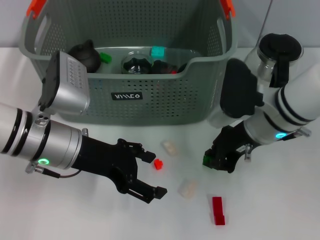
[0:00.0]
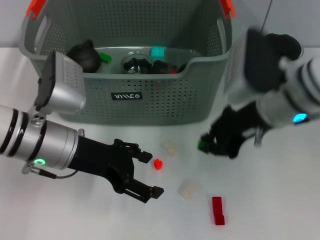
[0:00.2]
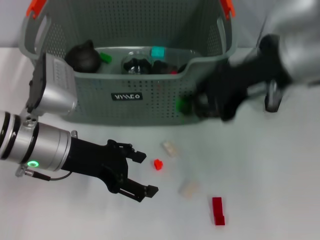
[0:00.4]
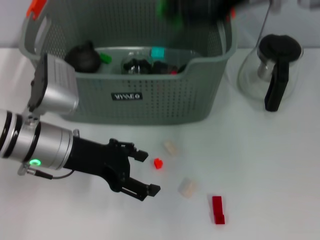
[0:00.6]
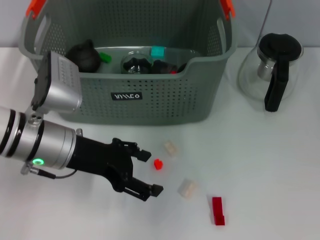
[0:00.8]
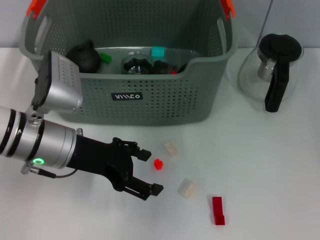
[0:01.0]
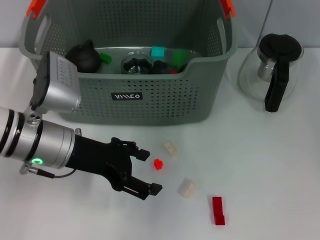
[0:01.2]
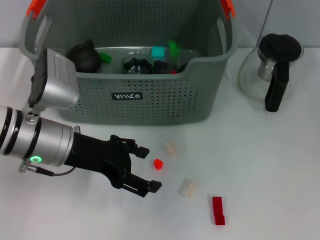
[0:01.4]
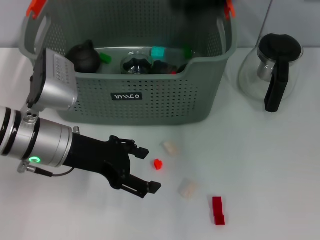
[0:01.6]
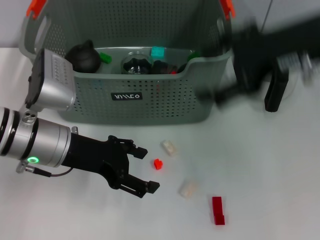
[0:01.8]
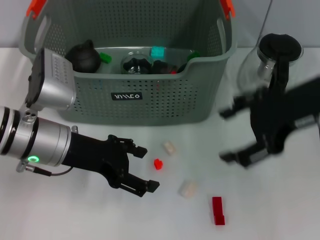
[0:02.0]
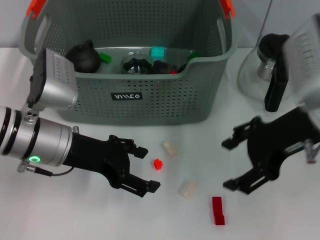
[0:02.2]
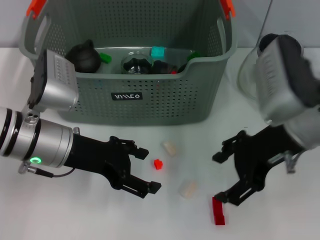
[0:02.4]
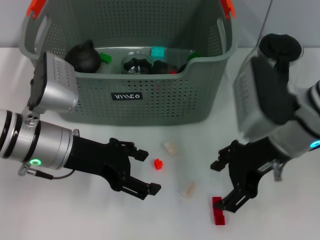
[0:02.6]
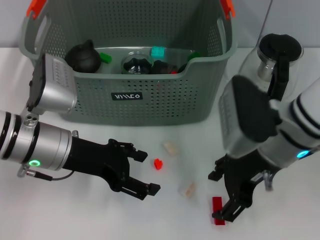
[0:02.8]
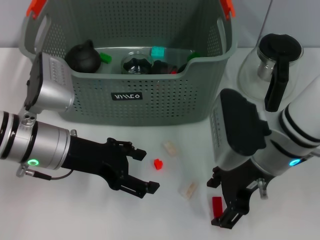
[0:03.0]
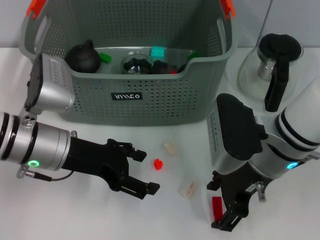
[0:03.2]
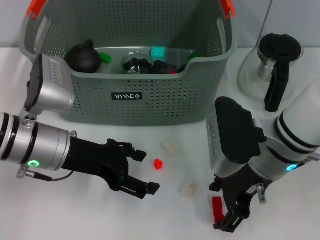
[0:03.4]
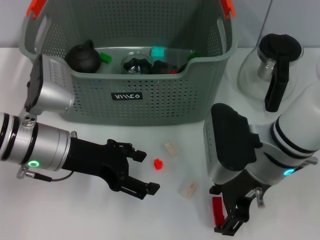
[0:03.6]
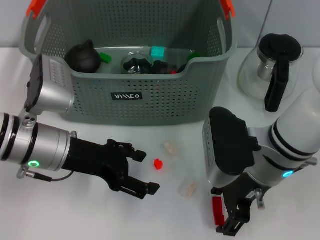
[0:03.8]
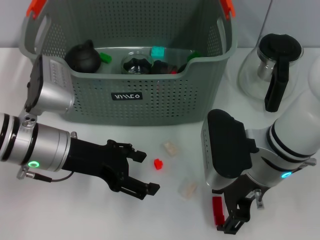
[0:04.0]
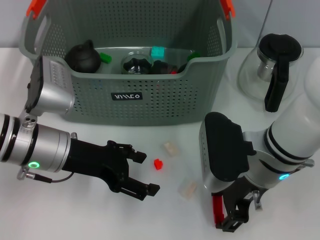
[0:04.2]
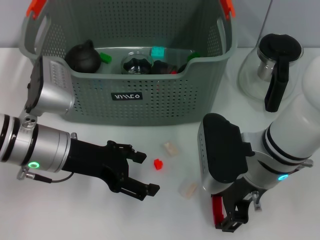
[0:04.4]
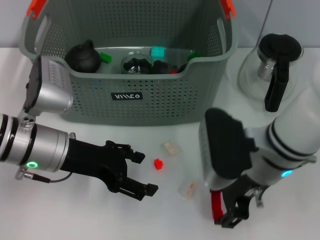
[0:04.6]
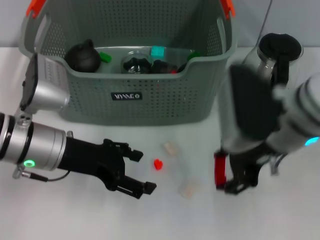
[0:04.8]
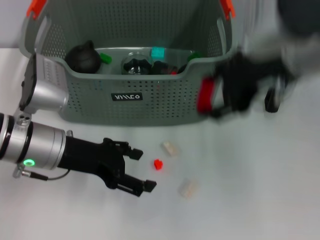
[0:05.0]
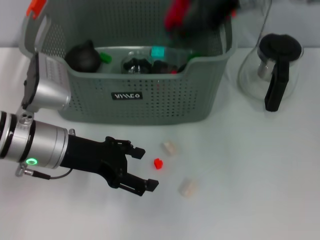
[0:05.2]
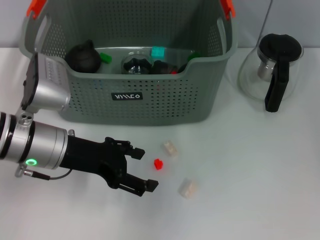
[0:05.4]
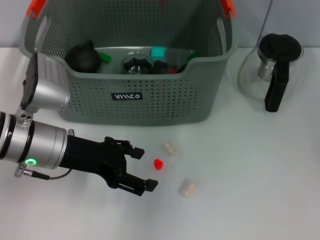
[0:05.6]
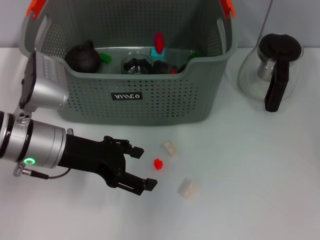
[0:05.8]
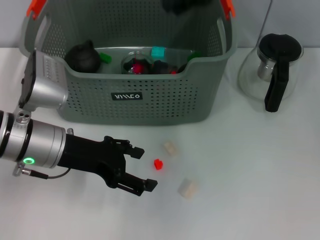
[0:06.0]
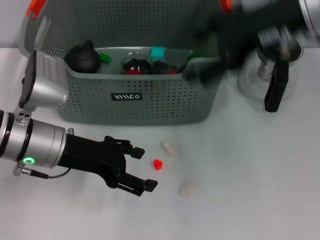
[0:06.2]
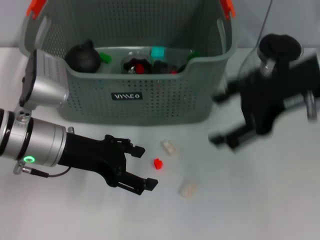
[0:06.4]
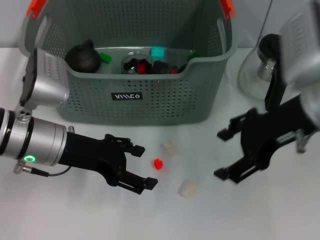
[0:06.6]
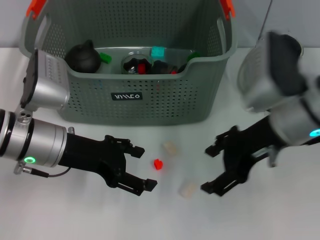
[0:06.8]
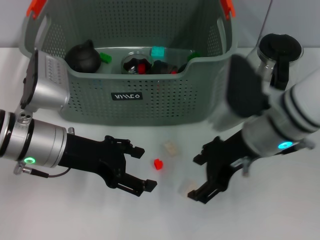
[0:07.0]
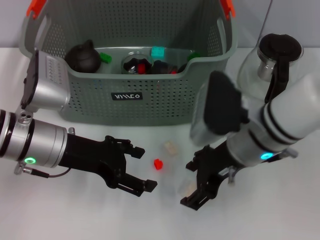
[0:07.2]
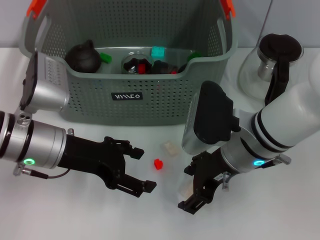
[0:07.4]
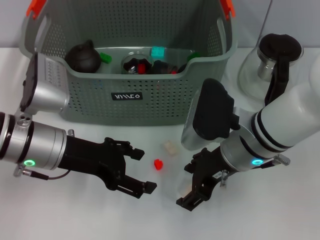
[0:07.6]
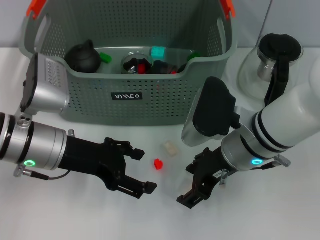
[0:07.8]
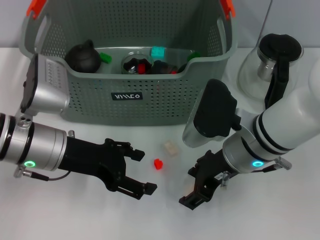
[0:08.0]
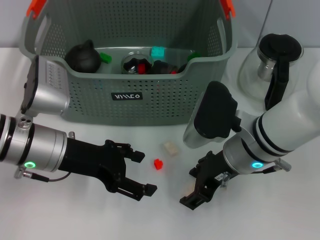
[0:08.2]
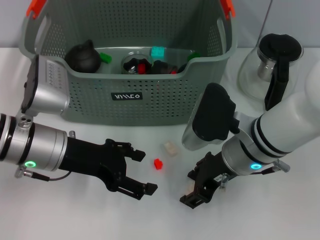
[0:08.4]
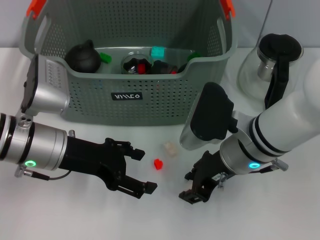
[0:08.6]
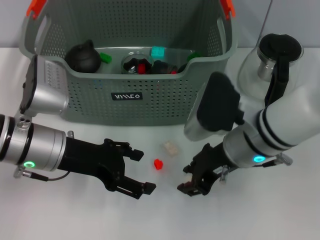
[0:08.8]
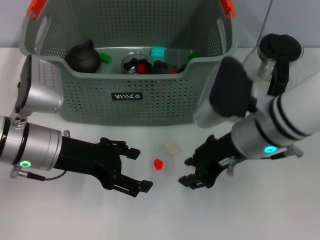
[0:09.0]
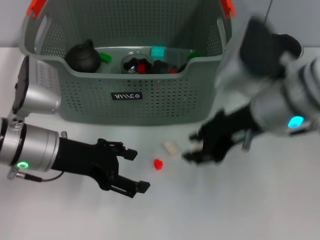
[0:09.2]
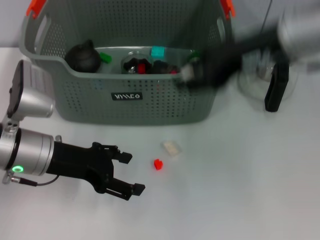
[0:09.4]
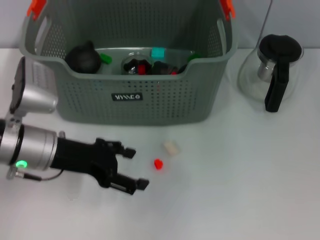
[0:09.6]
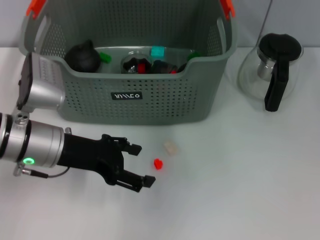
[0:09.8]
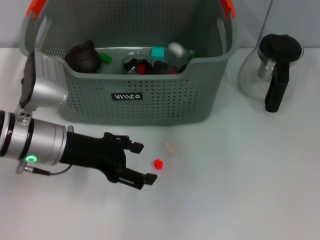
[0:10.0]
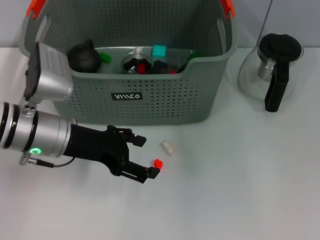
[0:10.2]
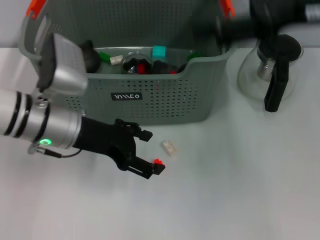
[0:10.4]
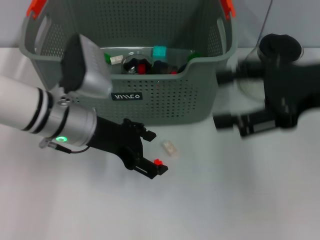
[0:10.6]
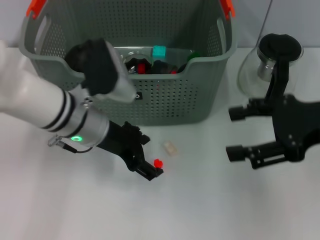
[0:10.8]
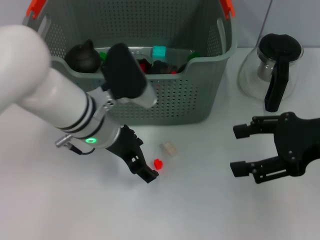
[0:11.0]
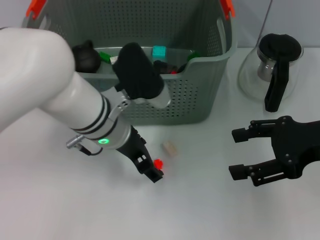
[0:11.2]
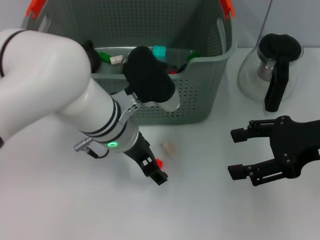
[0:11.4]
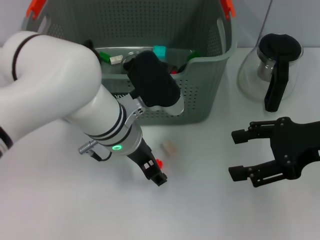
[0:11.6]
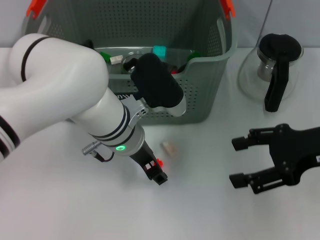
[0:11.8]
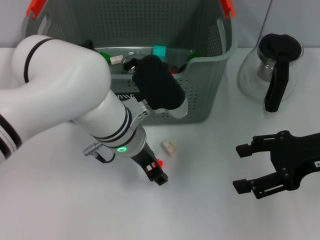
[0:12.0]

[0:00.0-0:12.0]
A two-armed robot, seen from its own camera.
Task of the whole recording: pick up the teacup on the table and place it into the storage bin, pick up the block on the table and place it into the storage bin.
Step, 0:00.0 to 0:01.4: Place the green block in the storage box with right gripper.
Step, 0:01.6 to 0:04.2: Grasp the red block with right gripper.
Step, 0:04.6 to 0:06.0: Place the red block in the storage box with right gripper.
Step, 0:06.2 to 0:08.6: Grasp the white block with right gripper.
Step, 0:08.8 to 0:10.2: Place the white block in the storage box with right gripper.
0:00.0 to 0:01.6: The right gripper goes about 20 cm upward, and opens.
0:01.6 to 0:03.0: The right gripper goes approximately 20 cm downward and backward.
0:03.0 to 0:04.4: There are only small adjustments of the grippers.
0:04.4 to 0:06.0: The right gripper is displaced upward and forward by approximately 25 cm.
0:06.0 to 0:07.6: The right gripper travels downward and backward by roughly 20 cm.
0:07.6 to 0:09.0: The right gripper closes up.
0:09.0 to 0:10.4: The right gripper goes approximately 20 cm upward and to the right, and opens up.
0:10.4 to 0:12.0: The right gripper shifts about 15 cm downward, while the left gripper goes approximately 10 cm to the right.

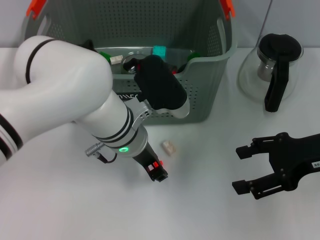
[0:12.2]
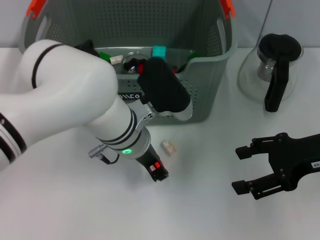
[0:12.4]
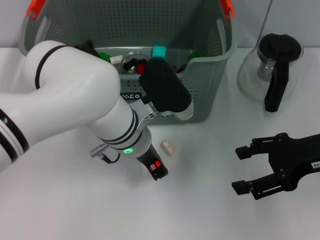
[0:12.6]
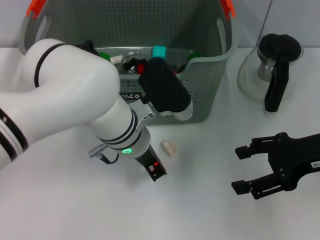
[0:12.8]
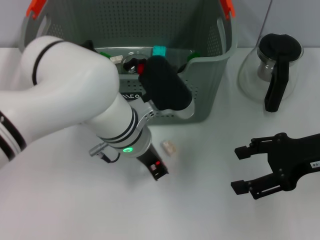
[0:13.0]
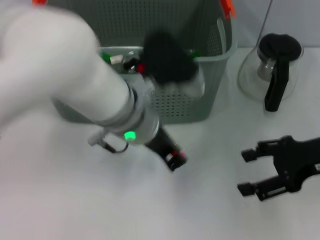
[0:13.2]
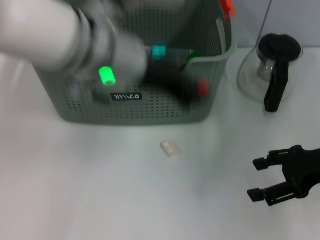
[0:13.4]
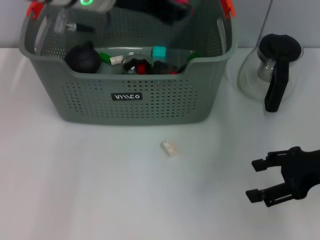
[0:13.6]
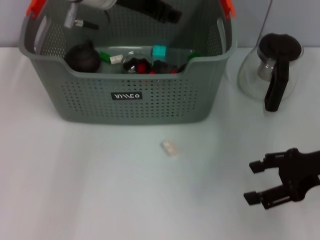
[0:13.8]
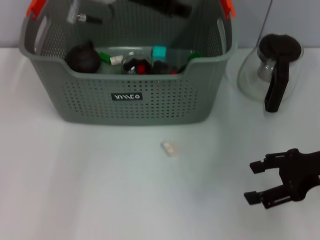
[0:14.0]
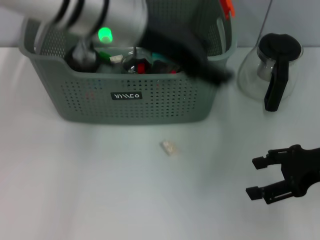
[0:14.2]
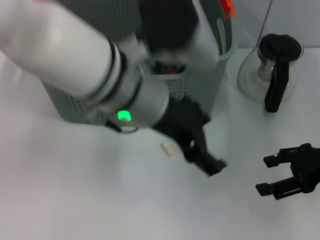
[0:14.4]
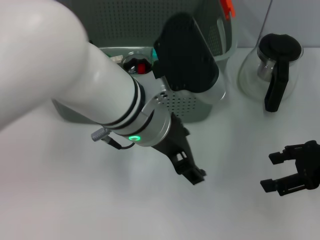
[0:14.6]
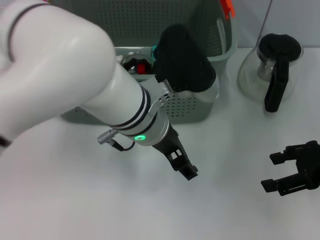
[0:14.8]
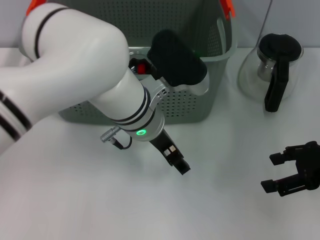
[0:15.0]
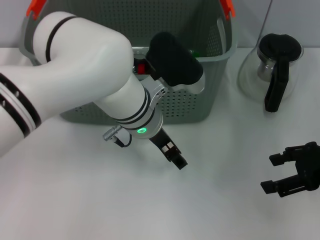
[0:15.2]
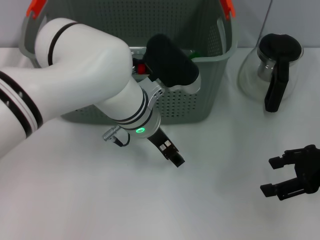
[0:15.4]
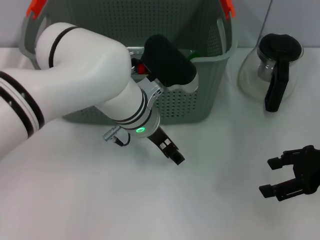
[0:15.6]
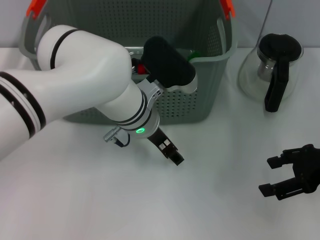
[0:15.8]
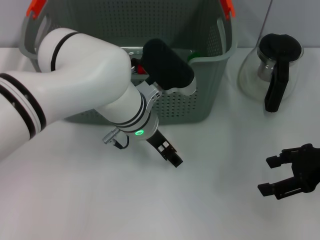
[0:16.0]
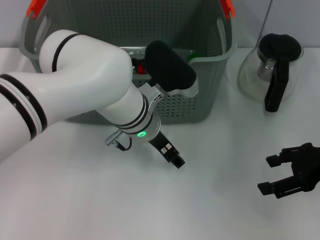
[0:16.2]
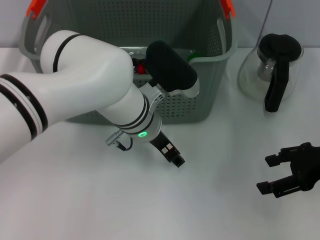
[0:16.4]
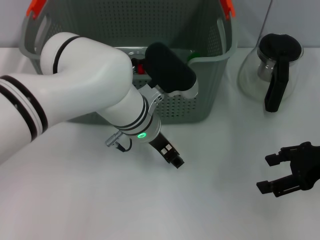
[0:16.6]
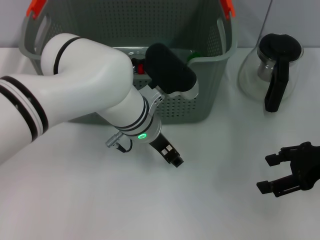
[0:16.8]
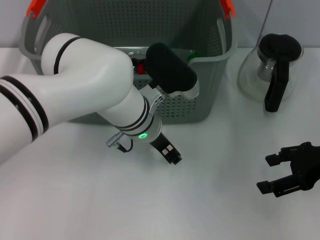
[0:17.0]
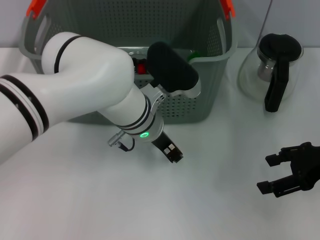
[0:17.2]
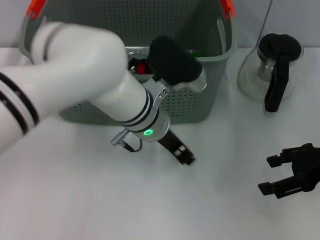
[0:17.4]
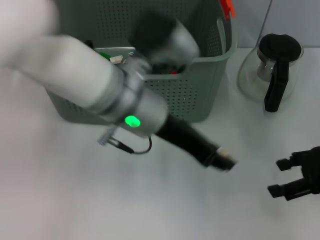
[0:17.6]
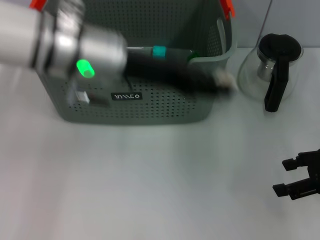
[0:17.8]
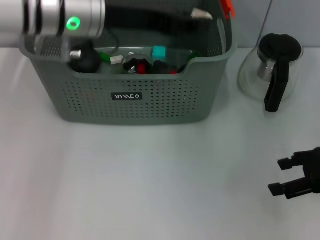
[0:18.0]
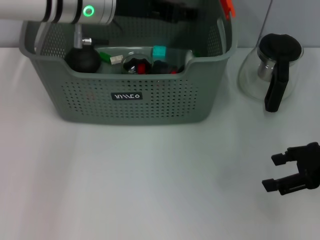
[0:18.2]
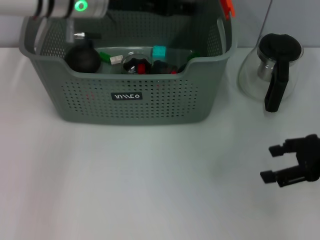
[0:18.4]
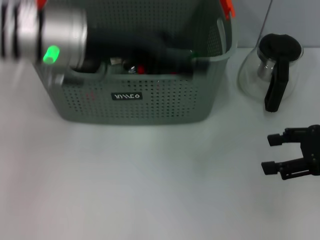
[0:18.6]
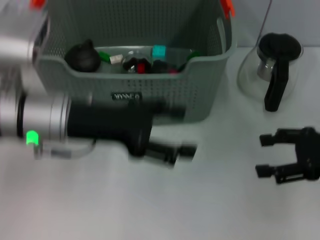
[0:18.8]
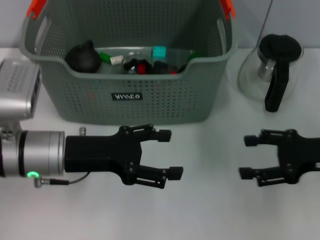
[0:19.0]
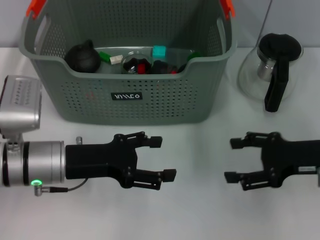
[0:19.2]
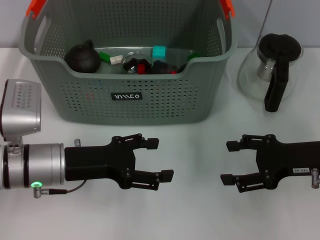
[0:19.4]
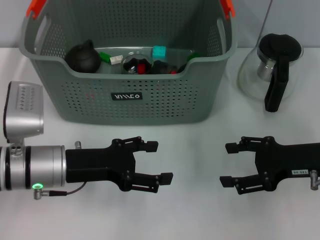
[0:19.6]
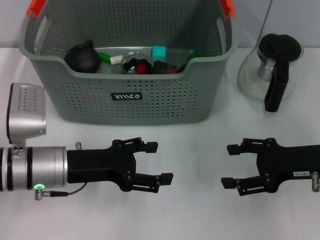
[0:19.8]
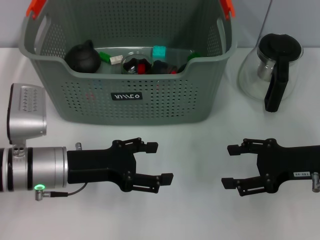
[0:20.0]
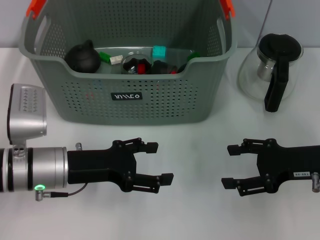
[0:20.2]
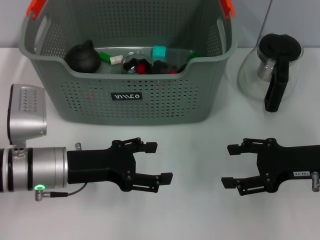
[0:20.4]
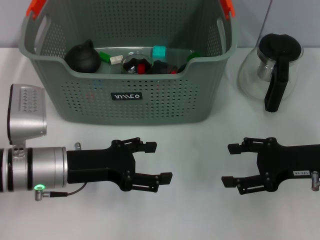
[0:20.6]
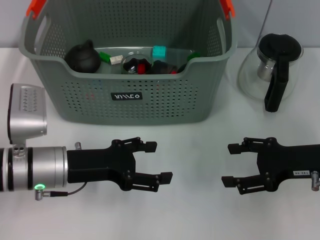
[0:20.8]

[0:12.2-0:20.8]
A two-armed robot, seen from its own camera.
Task of the whole recording: pick up the teacup on the table and place it into the storage bin, pick up the block on the table and place it into the storage bin.
Step, 0:13.0 to 0:13.8: Place the orange block in the storage box with left gripper.
Step, 0:14.0 to 0:17.0: Grasp the white block with left gripper.
Step, 0:17.2 to 0:18.2: Place the white block in the storage box with left gripper.
0:12.2 to 0:13.6: The left gripper heads upward, covering approximately 20 cm, and closes.
0:13.6 to 0:15.0: The left gripper is displaced downward and to the right by approximately 15 cm, and opens.
0:15.0 to 0:16.6: There are only small adjustments of the grippers.
0:16.6 to 0:18.0: The left gripper shifts roughly 15 cm upward and to the left.
0:18.0 to 0:19.4: The right gripper changes place by approximately 5 cm, while the left gripper is displaced downward and backward by roughly 20 cm, and opens its fingers.
0:19.4 to 0:20.8: Neither gripper changes place.
